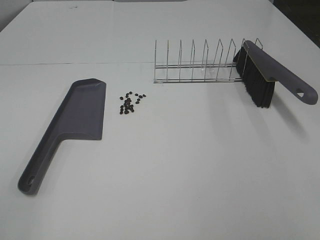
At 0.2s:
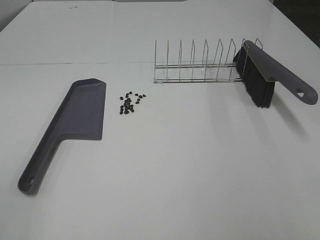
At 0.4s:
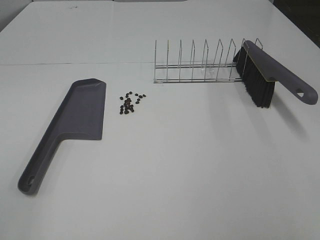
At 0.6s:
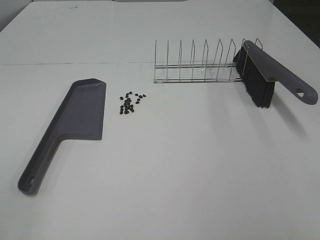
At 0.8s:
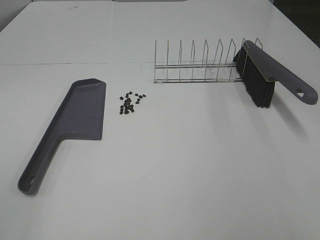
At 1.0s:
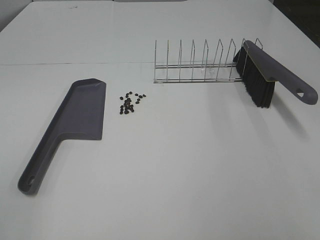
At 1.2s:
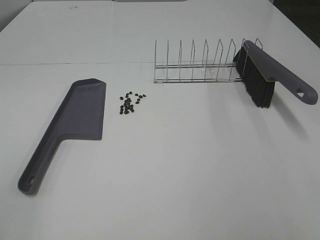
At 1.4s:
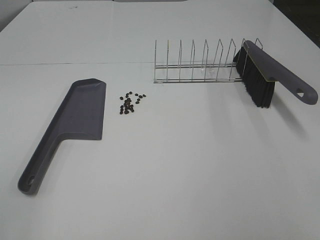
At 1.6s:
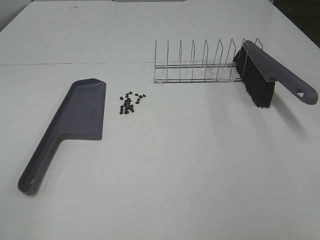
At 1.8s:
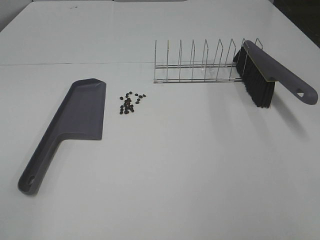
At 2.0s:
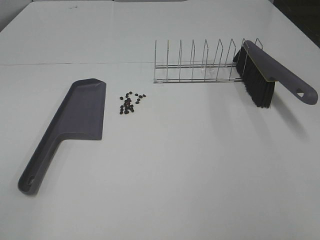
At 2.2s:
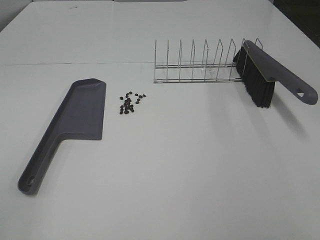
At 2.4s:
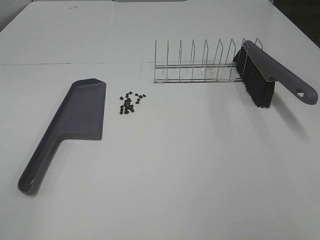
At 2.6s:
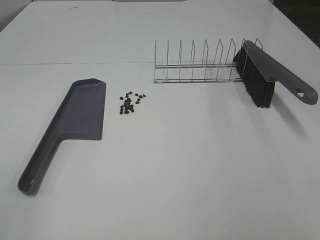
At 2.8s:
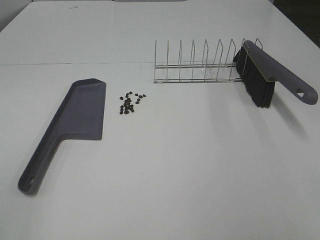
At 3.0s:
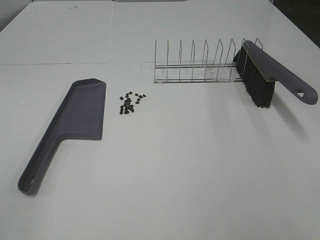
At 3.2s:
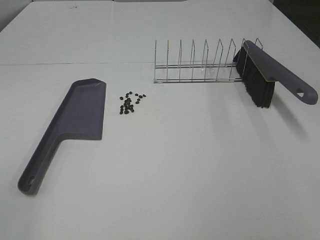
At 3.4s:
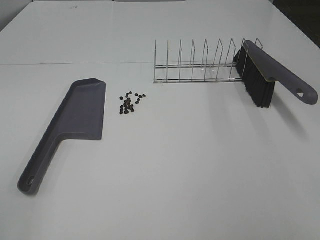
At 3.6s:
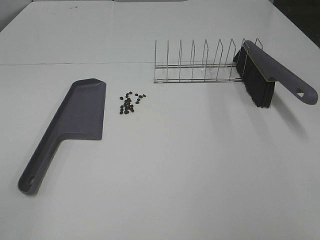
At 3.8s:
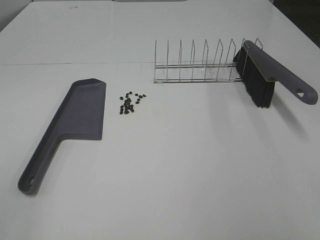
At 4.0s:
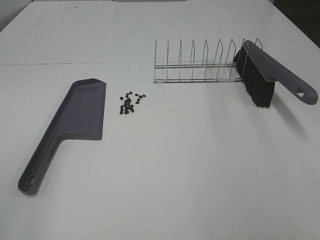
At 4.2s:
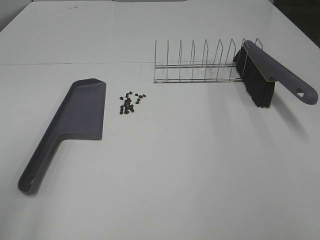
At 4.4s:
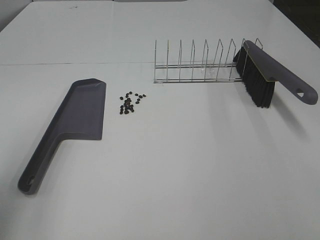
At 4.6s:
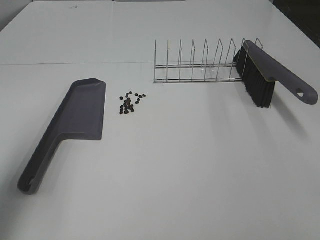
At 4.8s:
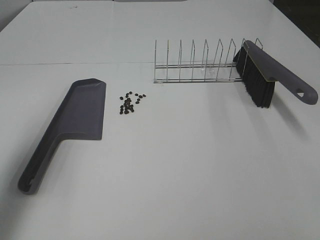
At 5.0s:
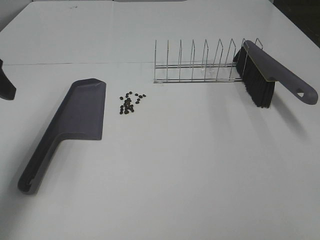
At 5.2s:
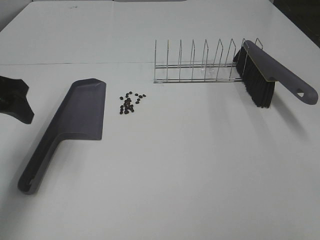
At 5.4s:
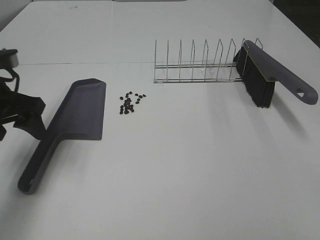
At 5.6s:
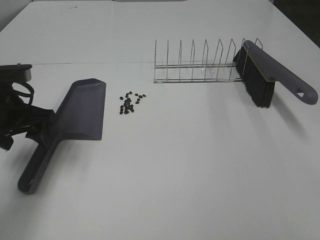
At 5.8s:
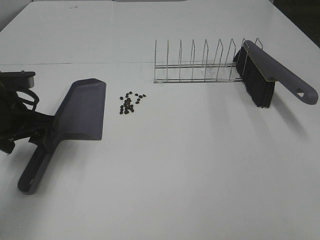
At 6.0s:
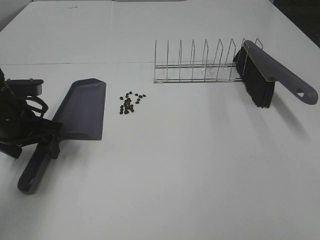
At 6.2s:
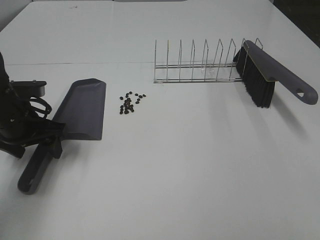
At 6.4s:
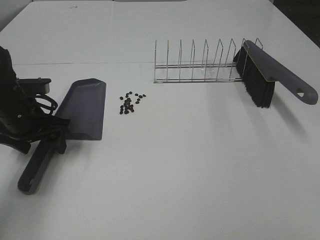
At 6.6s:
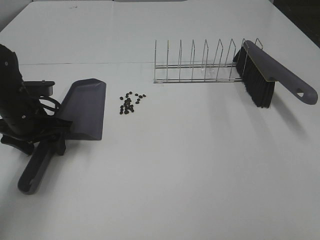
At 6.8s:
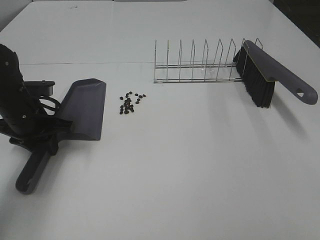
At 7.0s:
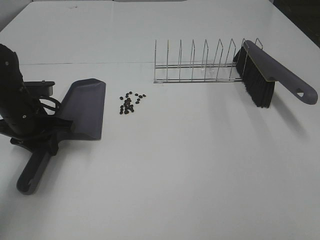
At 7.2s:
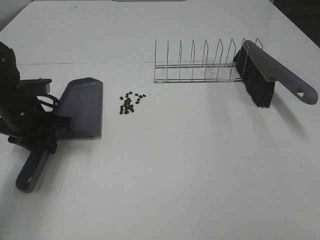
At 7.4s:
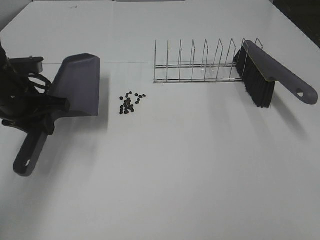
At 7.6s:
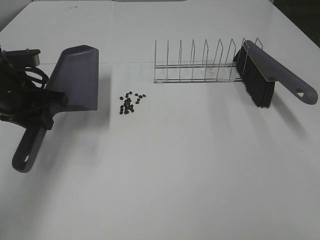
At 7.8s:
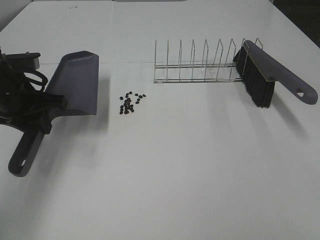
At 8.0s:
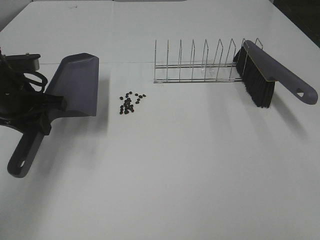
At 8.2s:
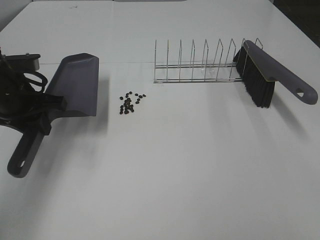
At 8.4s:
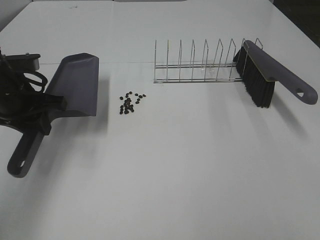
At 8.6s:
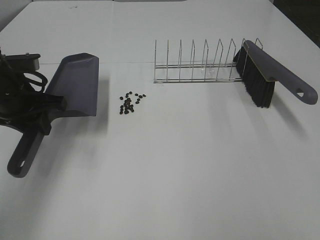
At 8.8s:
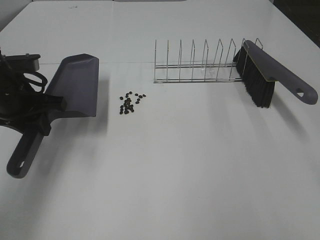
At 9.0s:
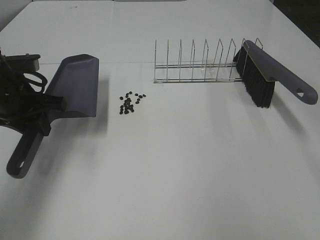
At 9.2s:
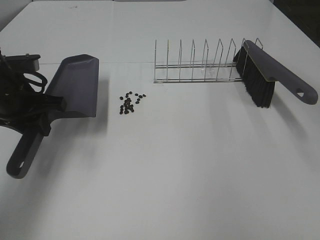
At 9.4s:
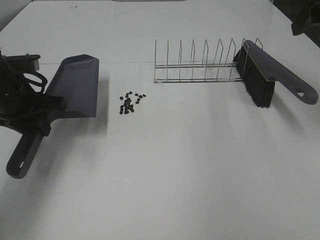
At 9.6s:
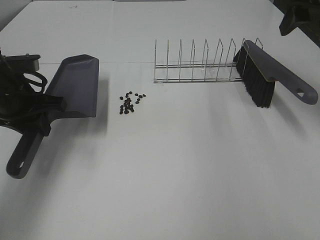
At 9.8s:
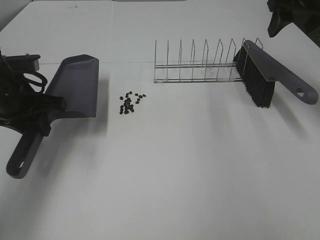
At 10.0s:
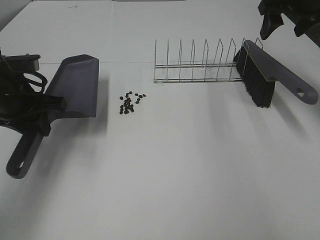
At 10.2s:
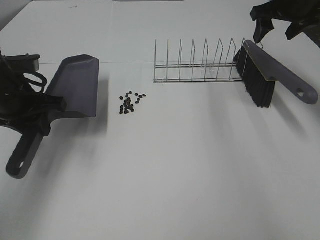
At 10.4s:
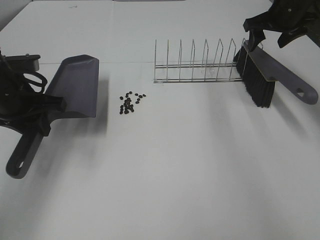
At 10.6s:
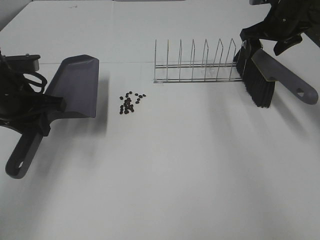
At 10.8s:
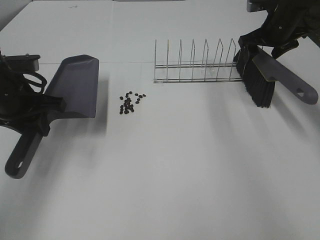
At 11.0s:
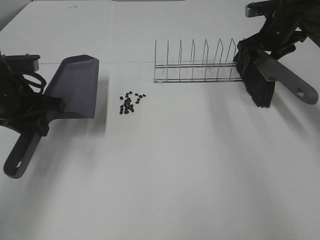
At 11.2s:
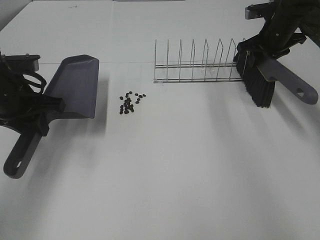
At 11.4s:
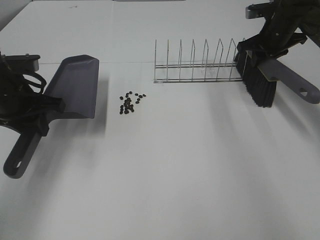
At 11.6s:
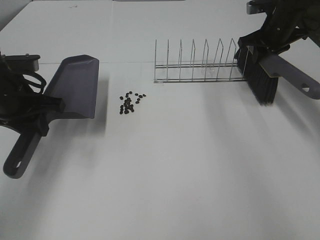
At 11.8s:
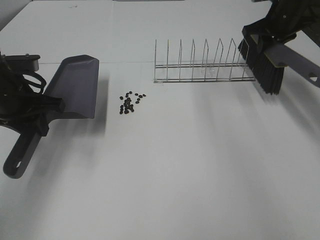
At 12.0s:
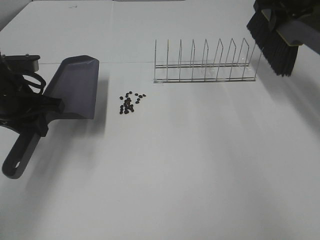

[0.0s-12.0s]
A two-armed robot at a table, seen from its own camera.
Task of the whole recording: Sweep Coffee Bean.
Step, 0.0s to 6.8s: Left hand: grab the dustpan.
Step, 8.2s to 11.4s: Right hand:grab the broom.
0.0s to 3.0s: Both grippers stay about where they are.
3.0s to 4.4s: The left gripper shifts approximately 15 cm forward.
4.4s to 6.0s: The left gripper is displaced downward and forward by roughly 25 cm.
6.0s to 7.6s: The left gripper closes up.
9.0s to 10.4s: The right gripper goes roughly 35 cm forward and downward.
10.4s to 12.0s: The right gripper goes about 5 cm upward, and closes.

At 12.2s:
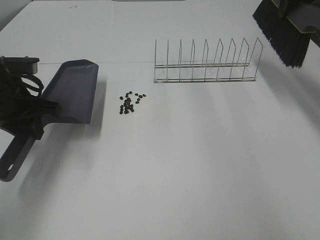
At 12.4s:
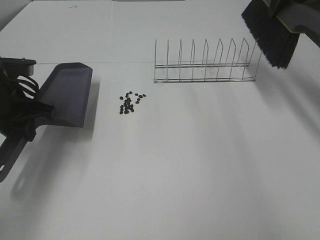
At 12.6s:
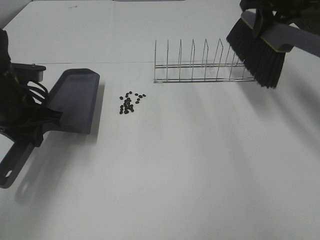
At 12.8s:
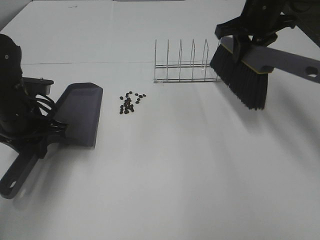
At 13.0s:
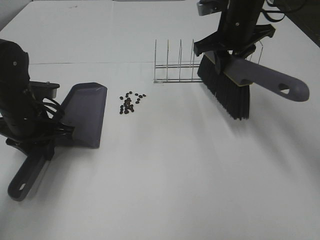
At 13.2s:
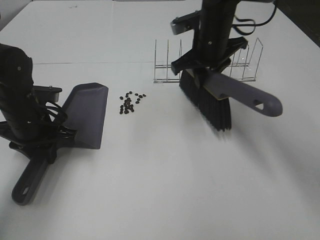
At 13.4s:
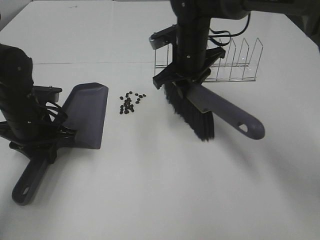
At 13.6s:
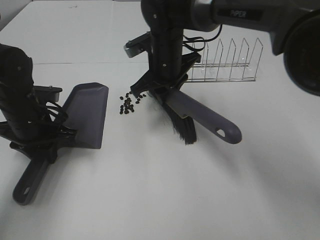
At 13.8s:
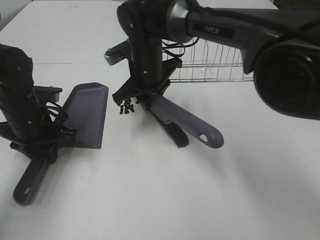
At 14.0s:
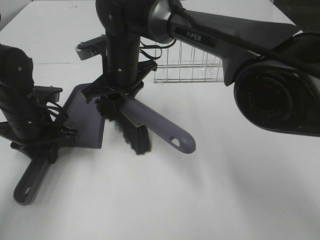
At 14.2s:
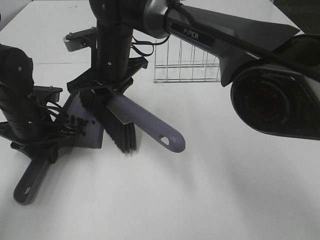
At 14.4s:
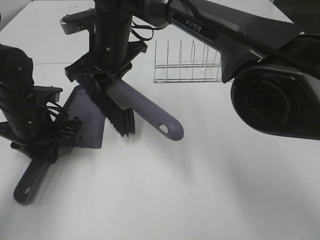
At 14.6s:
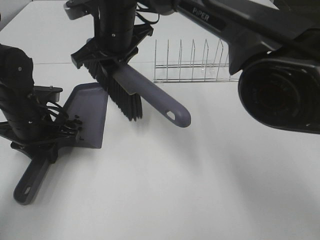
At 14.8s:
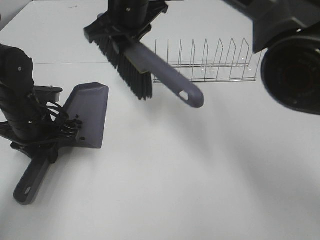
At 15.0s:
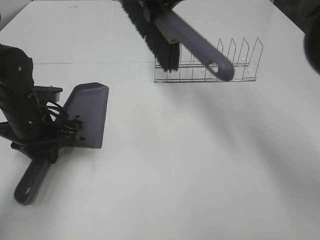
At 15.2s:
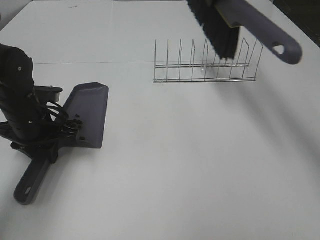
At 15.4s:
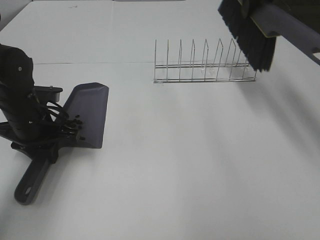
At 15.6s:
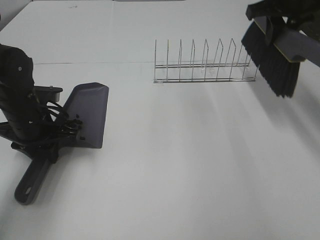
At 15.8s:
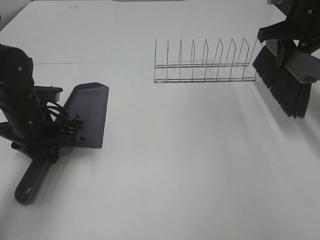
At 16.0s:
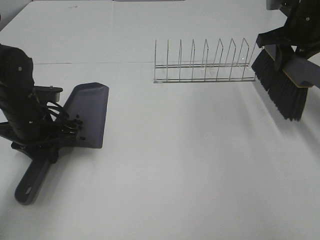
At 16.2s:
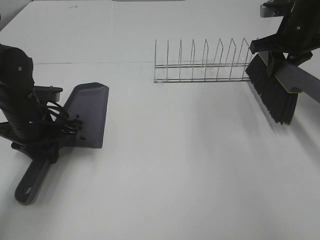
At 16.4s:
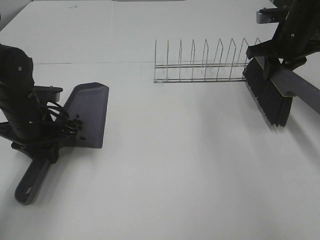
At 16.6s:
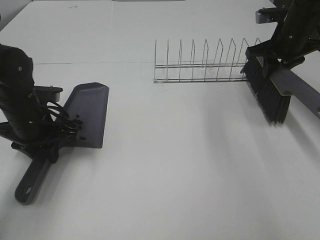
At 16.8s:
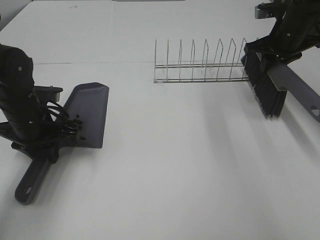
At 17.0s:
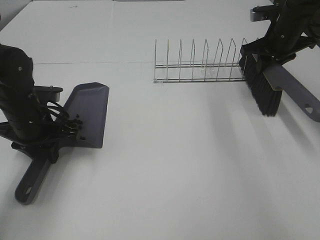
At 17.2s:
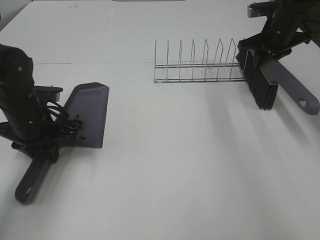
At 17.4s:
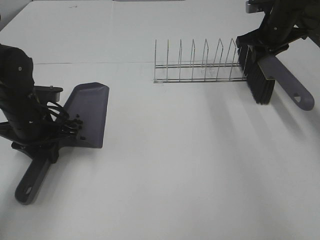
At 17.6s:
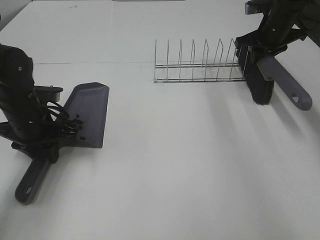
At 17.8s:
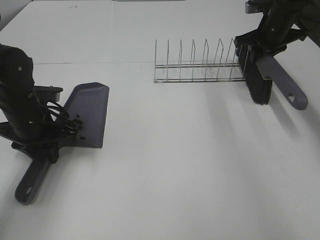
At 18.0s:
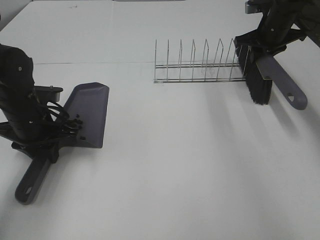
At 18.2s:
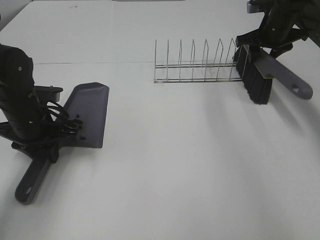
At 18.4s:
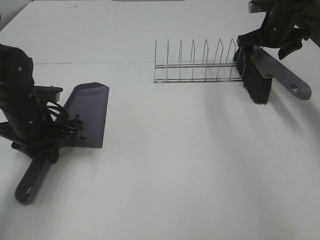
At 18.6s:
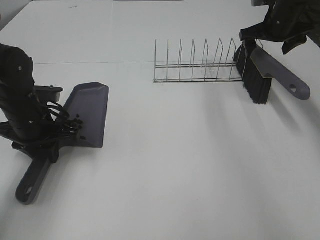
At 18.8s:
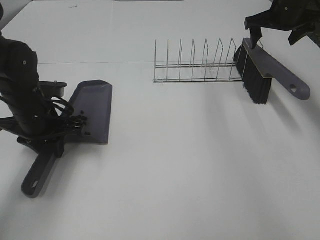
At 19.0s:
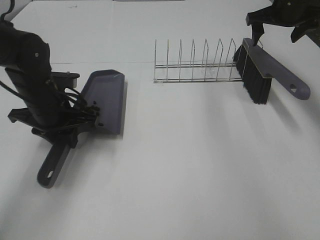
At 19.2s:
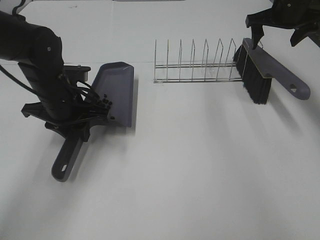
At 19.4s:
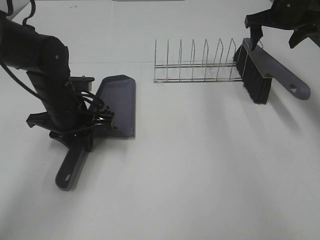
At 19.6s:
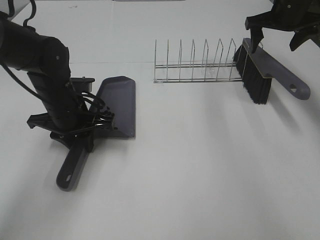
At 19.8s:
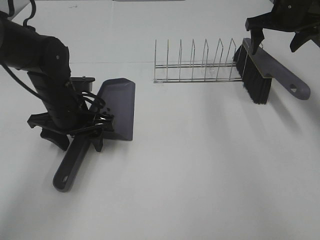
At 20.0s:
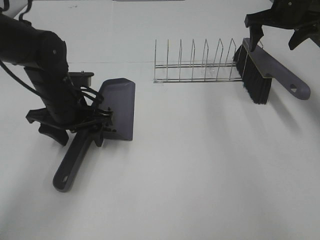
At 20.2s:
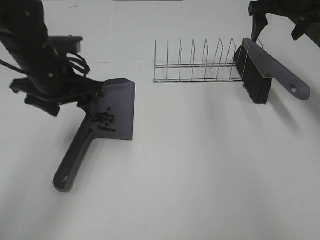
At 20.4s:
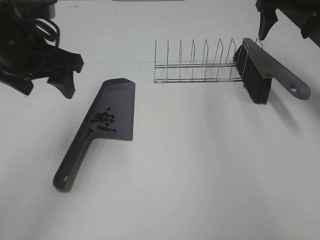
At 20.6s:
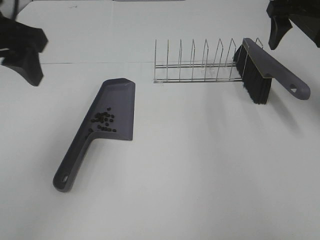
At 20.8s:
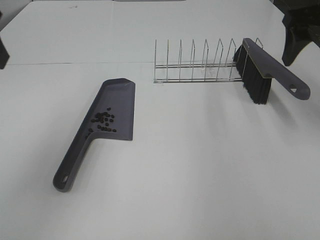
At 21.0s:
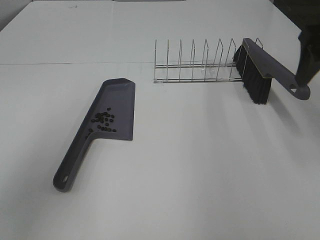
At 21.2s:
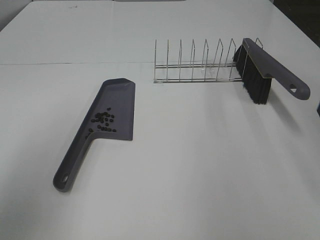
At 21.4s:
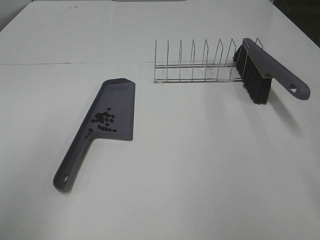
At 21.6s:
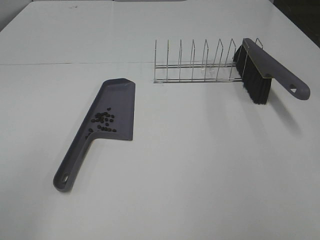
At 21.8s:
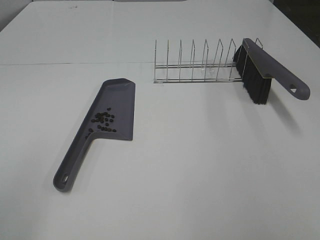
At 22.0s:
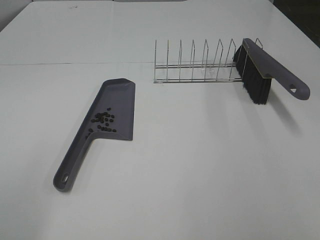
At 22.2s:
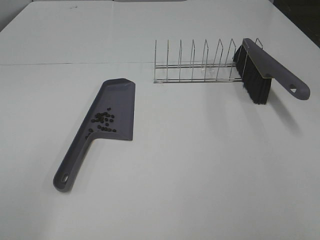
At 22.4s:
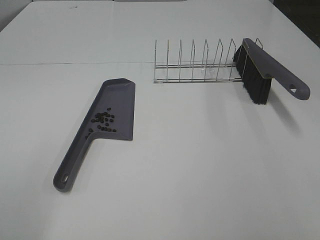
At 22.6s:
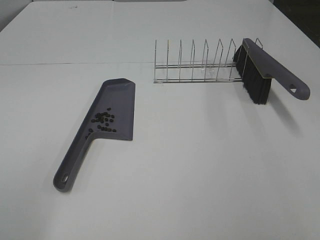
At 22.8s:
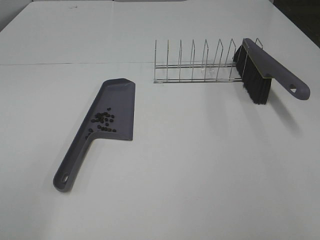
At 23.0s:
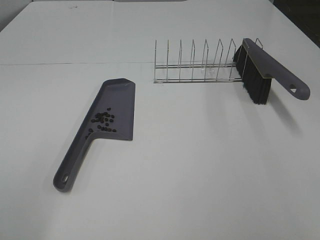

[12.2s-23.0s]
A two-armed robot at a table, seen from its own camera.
Task of the whole recording: Sweep Coffee Bean.
Step, 12.2s to 14.4s: Right hand:sweep the coffee beans into the dustpan.
Step, 14.6s to 18.6s: Right hand:place the broom on the rack.
Step, 18.8s to 20.0s: Left hand:place the dustpan on the table.
12.2s to 13.8s: The right gripper travels to the left and downward by some 35 cm. Meanwhile the left gripper shifts roughly 5 cm downward.
13.8s to 15.2s: The right gripper goes some 25 cm upward and to the right.
15.2s to 16.8s: The right gripper travels downward and to the right by roughly 20 cm.
16.8s to 18.4s: The right gripper is displaced forward by roughly 5 cm, and opens.
18.4s to 20.0s: The left gripper shifts some 5 cm to the right, and opens up; the right gripper travels upward by roughly 5 cm.
20.0s to 21.4s: The left gripper goes about 35 cm backward, upward and to the left. Meanwhile the right gripper goes some 35 cm backward.
